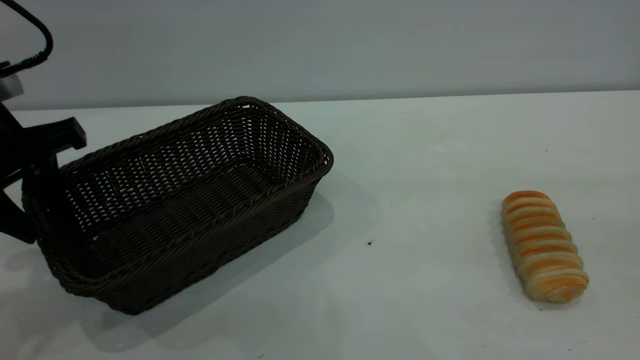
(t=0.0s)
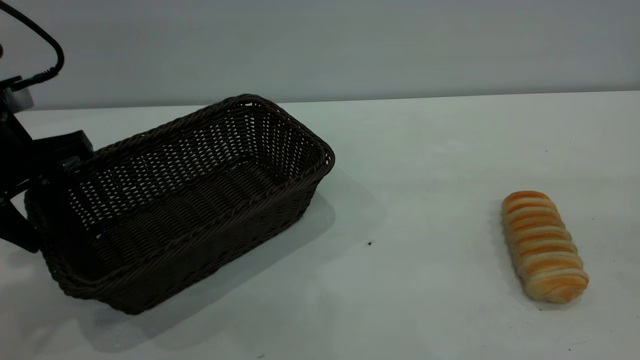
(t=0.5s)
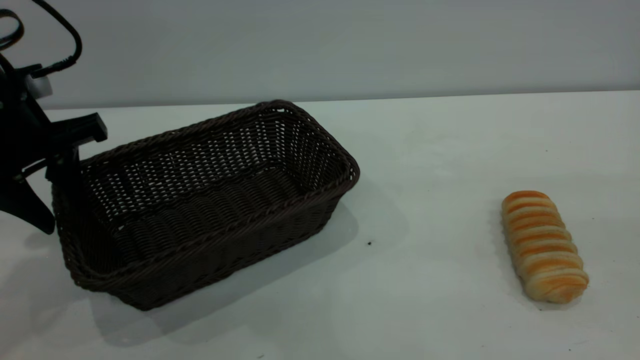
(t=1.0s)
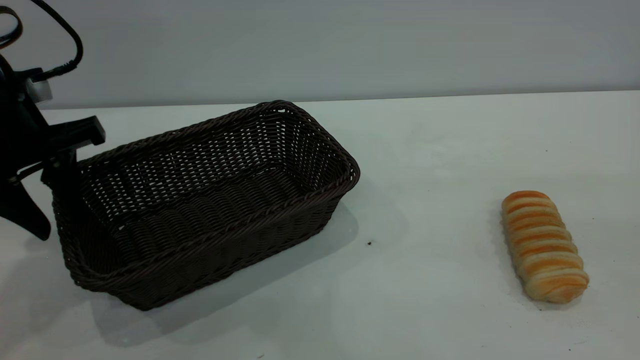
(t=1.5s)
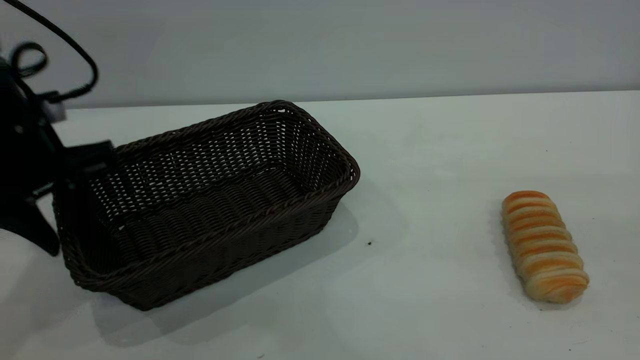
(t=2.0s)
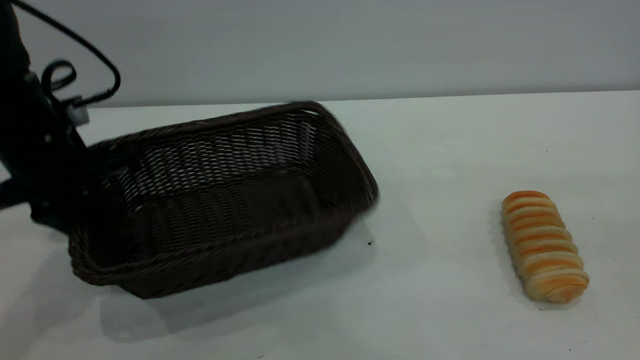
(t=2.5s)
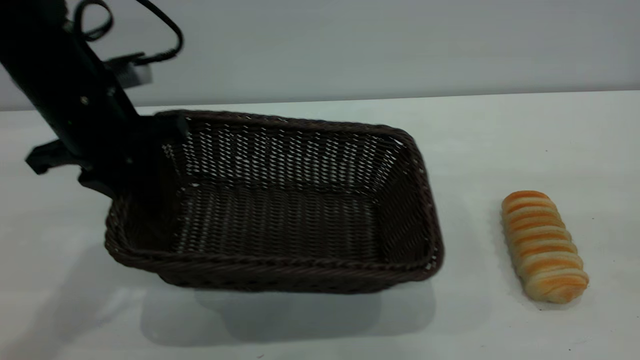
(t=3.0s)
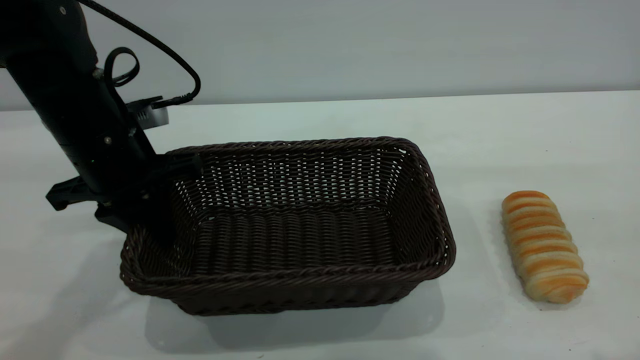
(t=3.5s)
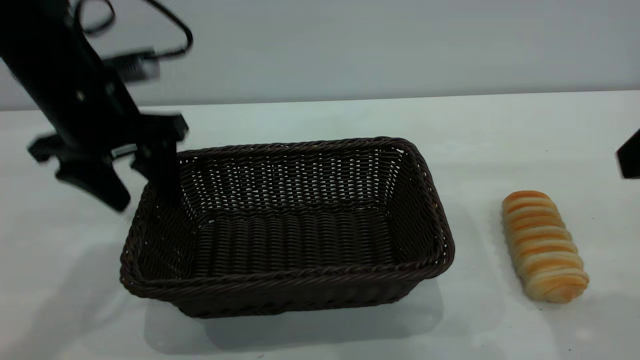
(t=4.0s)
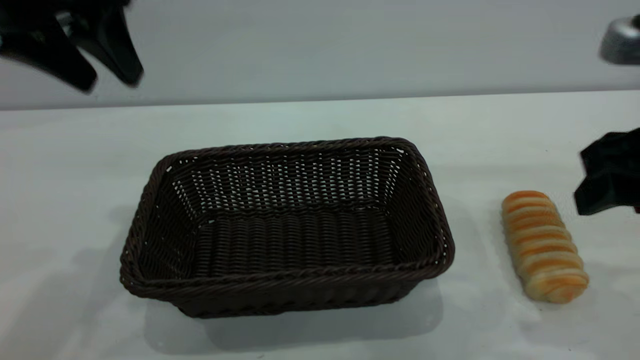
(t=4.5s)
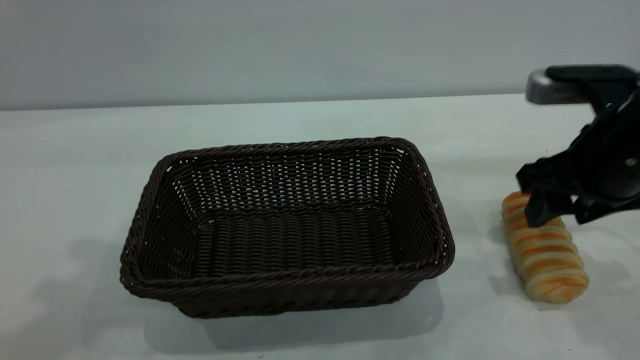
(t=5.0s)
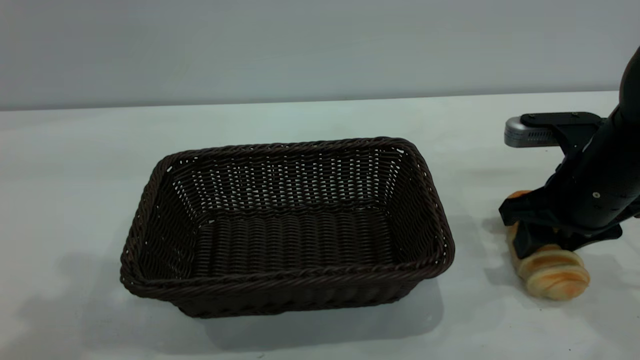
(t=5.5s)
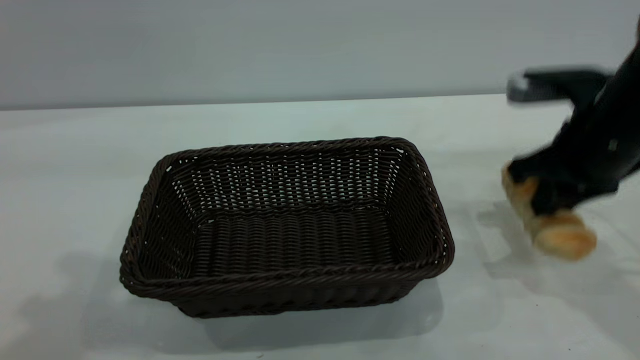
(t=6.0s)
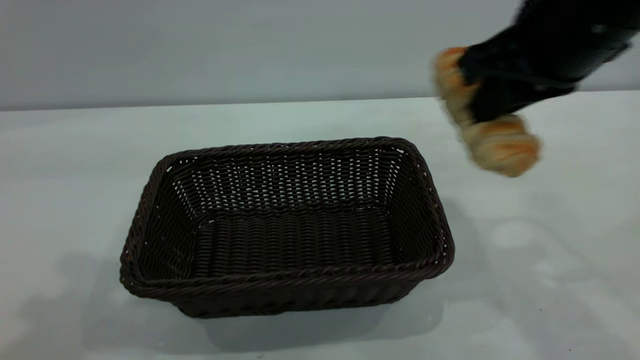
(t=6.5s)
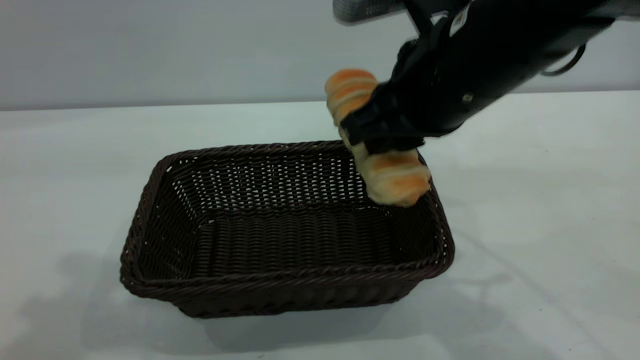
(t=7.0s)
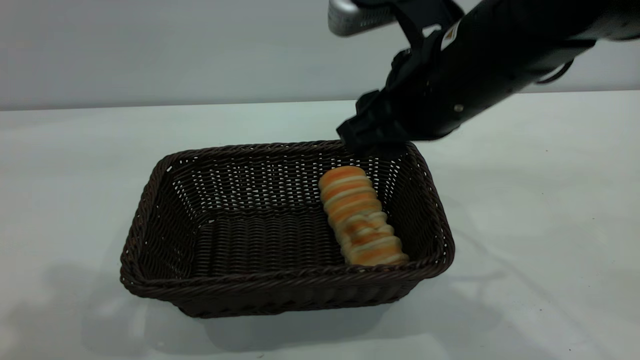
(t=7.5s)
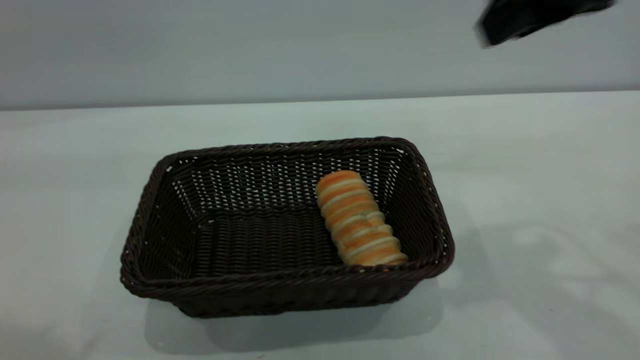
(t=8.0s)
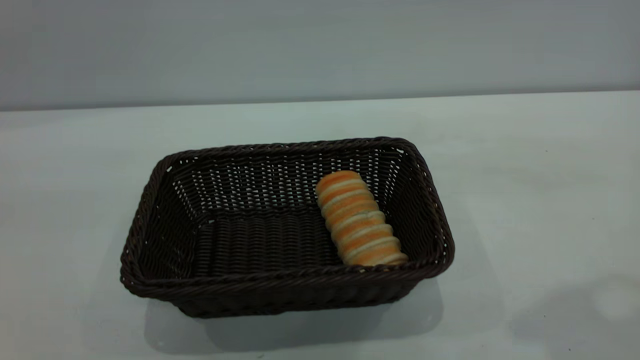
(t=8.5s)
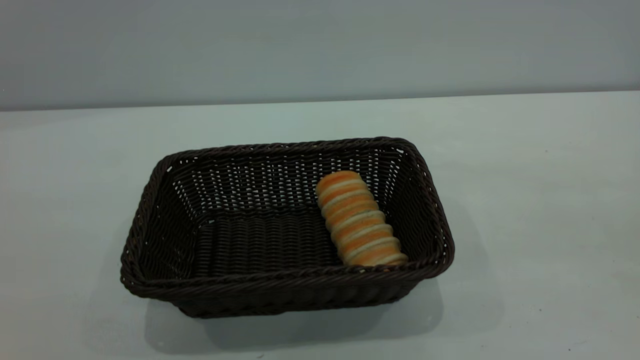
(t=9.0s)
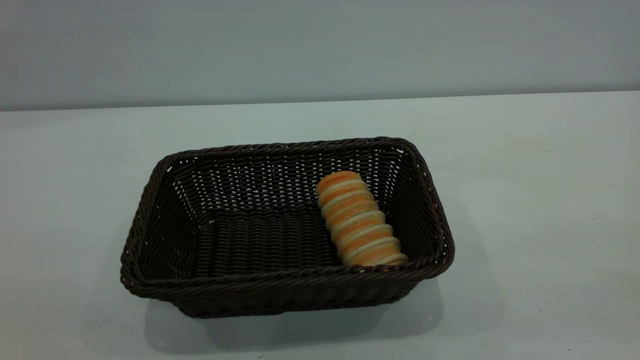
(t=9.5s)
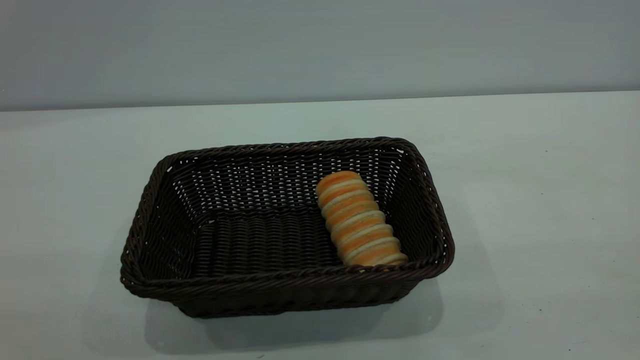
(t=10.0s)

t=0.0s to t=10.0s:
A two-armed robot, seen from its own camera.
Task of the whole recording: One hand grasps the black basket and places it in the middle of the table, while the other hand picks up the long bread and puts it into the black basket.
Step, t=0.0s to t=4.0s: Move the basket to the center of view.
Step, t=6.5s to t=7.5s: place the bread into the basket.
t=0.0s to t=2.0s: The left gripper changes place by some 5 cm.
t=2.0s to t=4.0s: The right gripper goes some 10 cm forward and downward. The left gripper travels to the right by some 5 cm, and opens up.
t=4.0s to t=6.0s: The left gripper moves upward and backward, roughly 20 cm, while the right gripper goes approximately 15 cm forward and downward, and closes up.
t=6.0s to t=8.0s: The right gripper swings up and down, roughly 15 cm each way, with 2 reversals, and opens up; the left gripper goes roughly 10 cm backward and upward.
t=8.0s to t=10.0s: The right gripper goes some 30 cm backward.

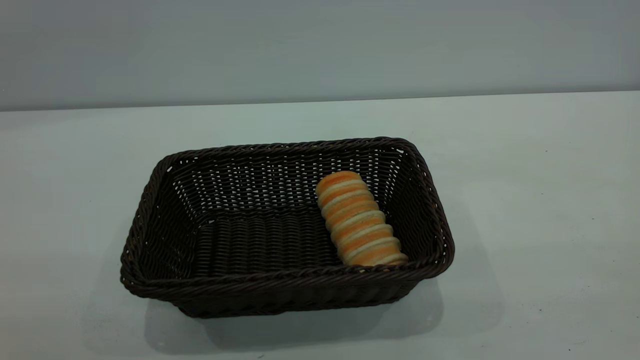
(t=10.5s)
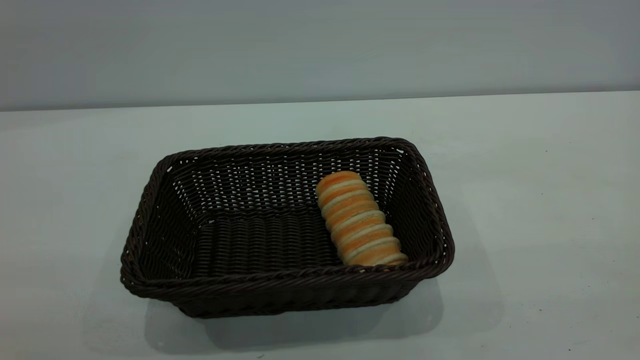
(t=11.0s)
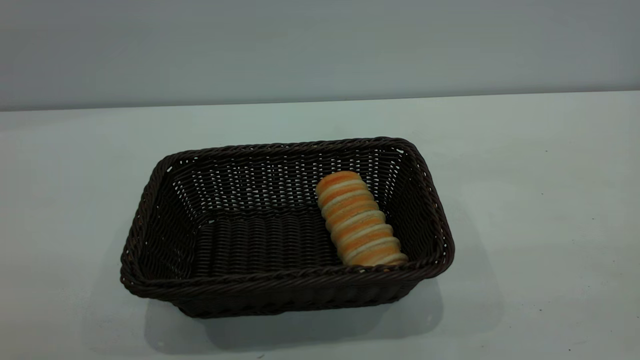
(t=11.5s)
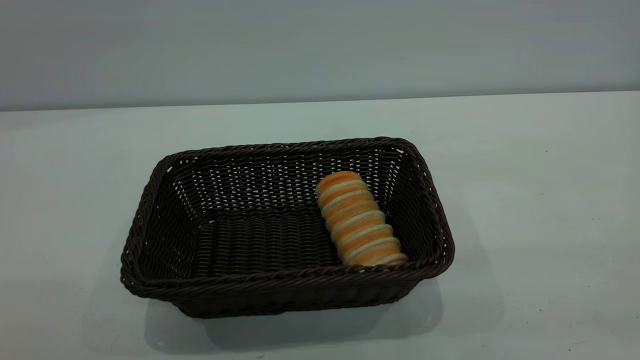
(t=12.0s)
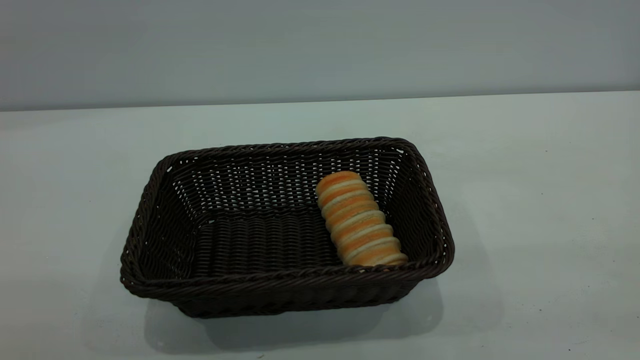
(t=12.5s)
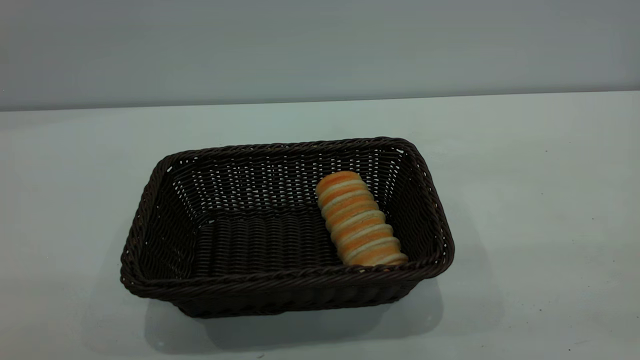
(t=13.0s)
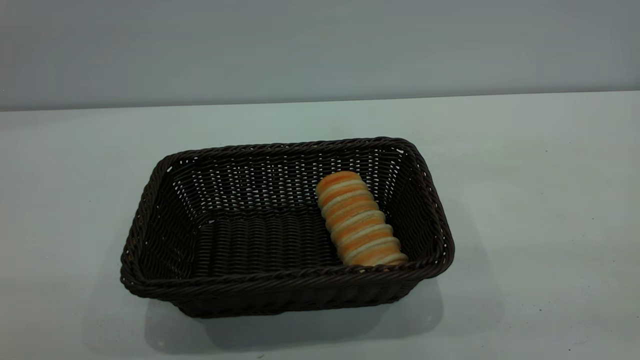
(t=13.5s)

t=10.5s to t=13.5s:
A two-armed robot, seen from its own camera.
Task of the whole recording: One hand grasps the black basket and places it in the middle of the table, while the other hand picks up the long bread and puts it into the black basket.
t=12.0s to t=13.5s: Neither gripper changes place.
